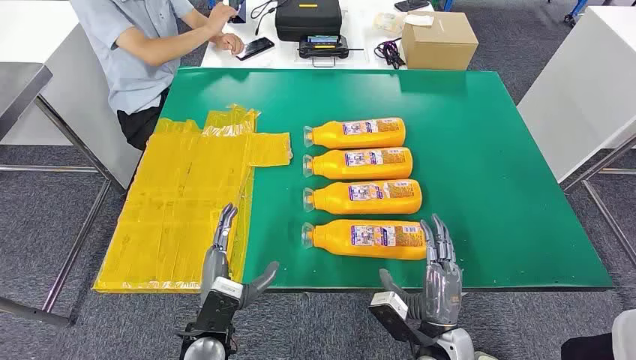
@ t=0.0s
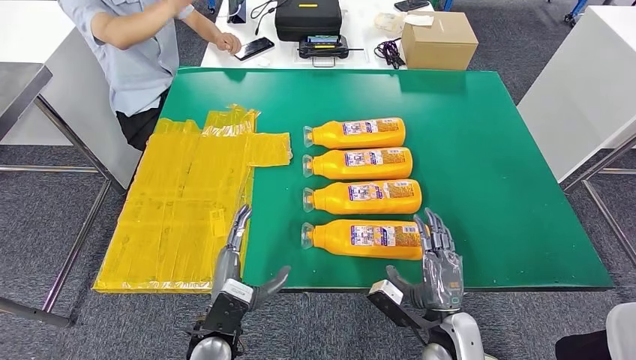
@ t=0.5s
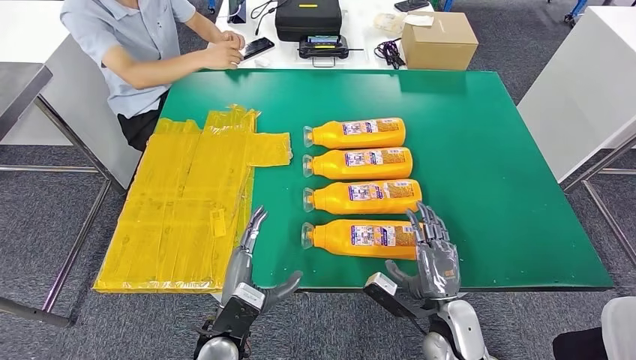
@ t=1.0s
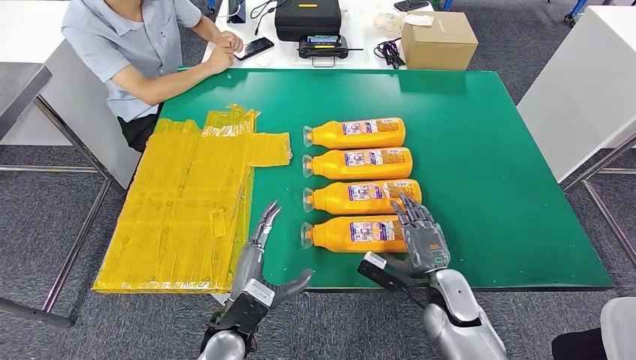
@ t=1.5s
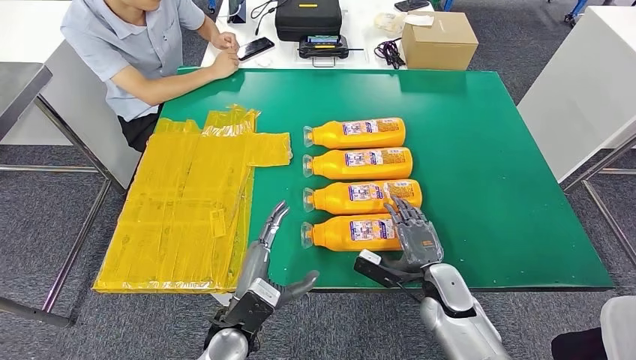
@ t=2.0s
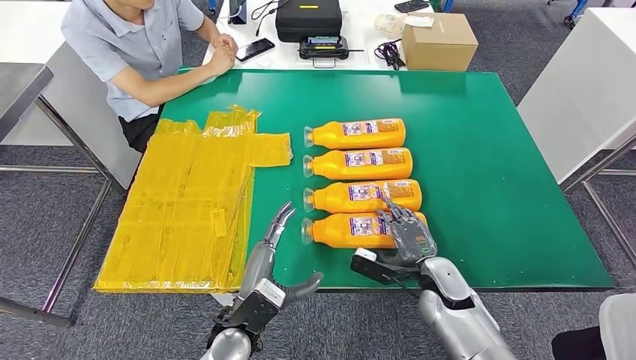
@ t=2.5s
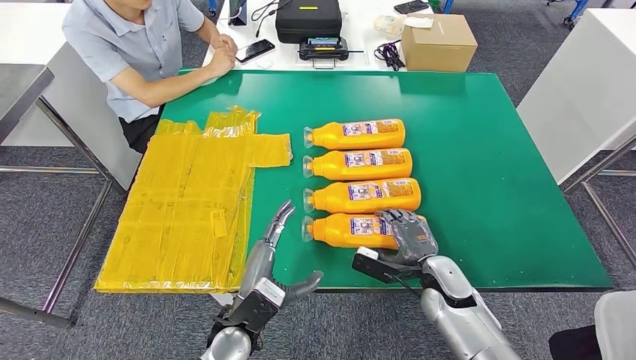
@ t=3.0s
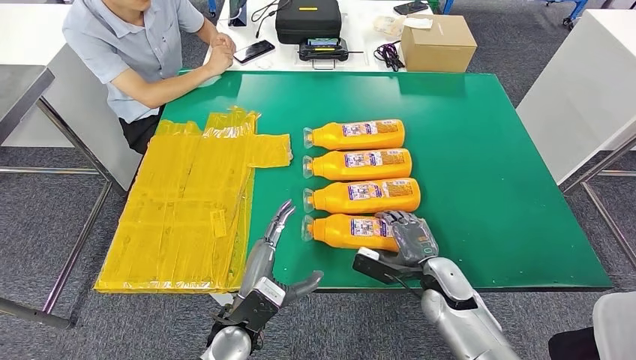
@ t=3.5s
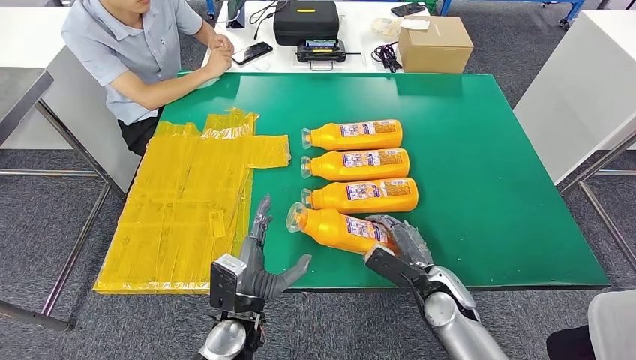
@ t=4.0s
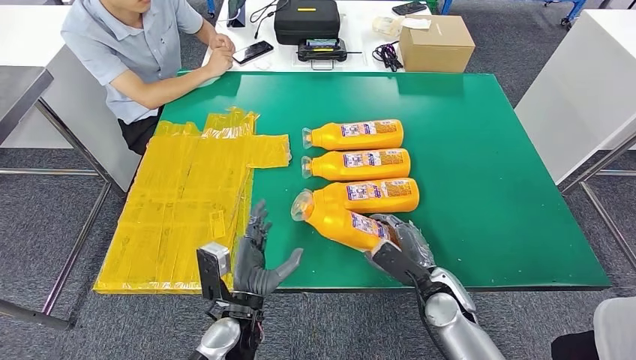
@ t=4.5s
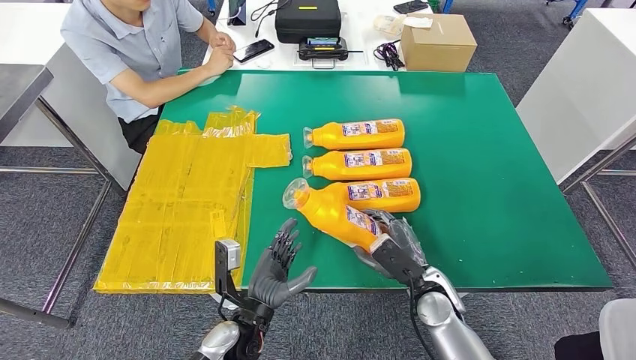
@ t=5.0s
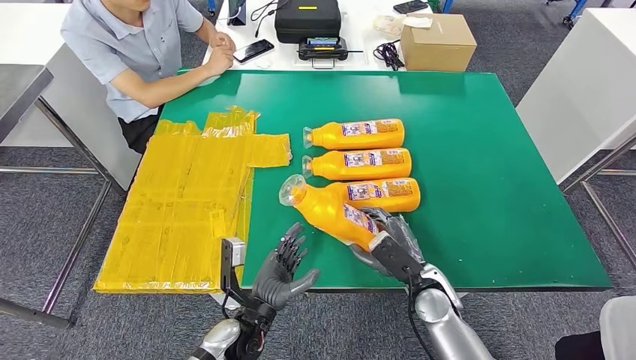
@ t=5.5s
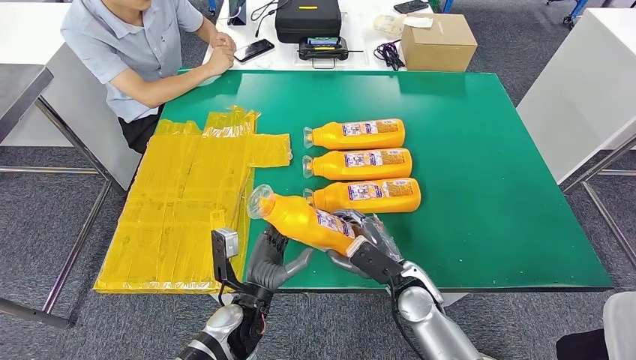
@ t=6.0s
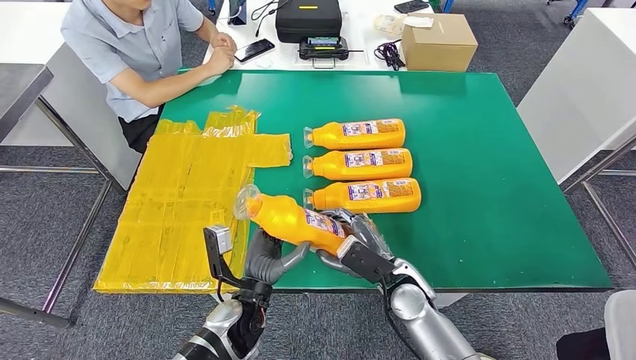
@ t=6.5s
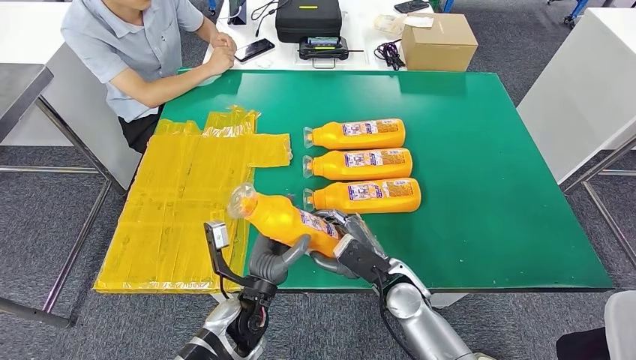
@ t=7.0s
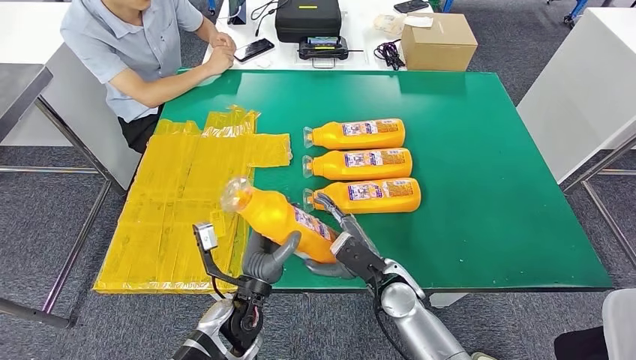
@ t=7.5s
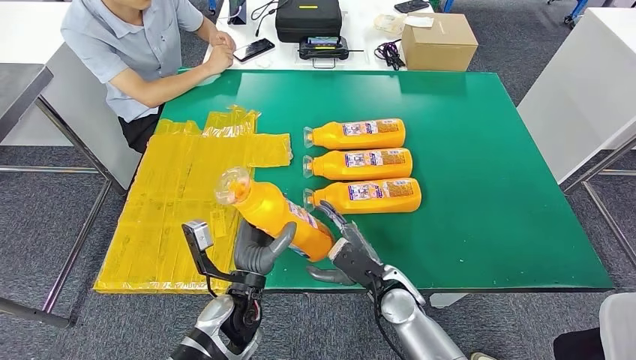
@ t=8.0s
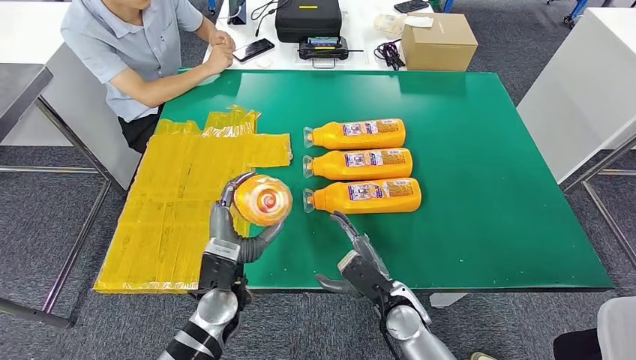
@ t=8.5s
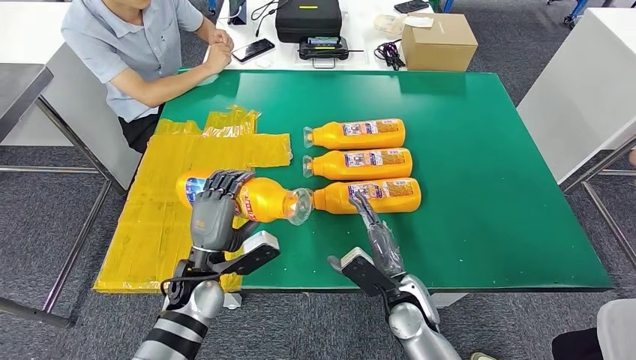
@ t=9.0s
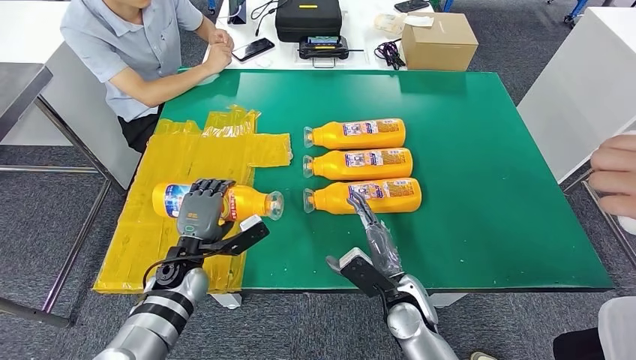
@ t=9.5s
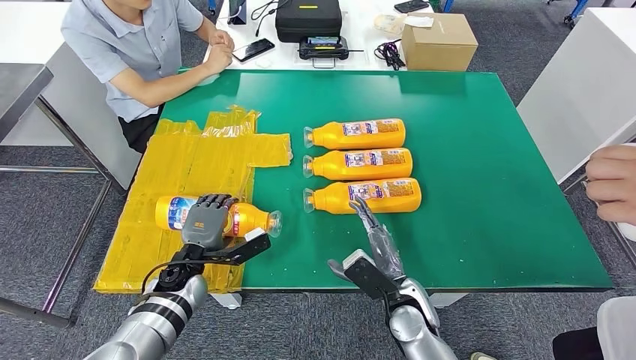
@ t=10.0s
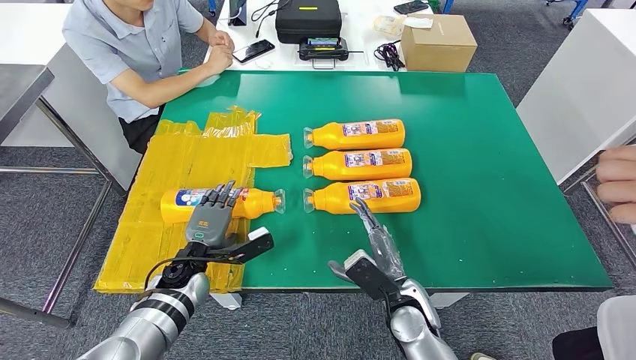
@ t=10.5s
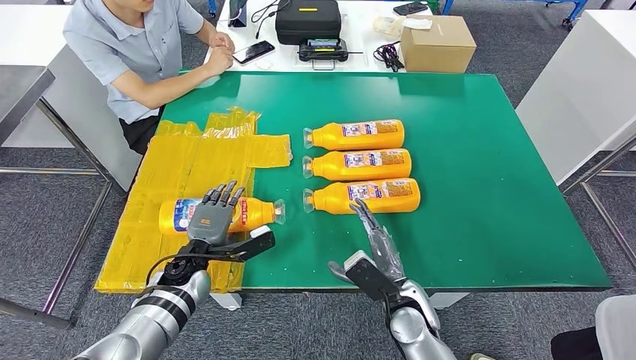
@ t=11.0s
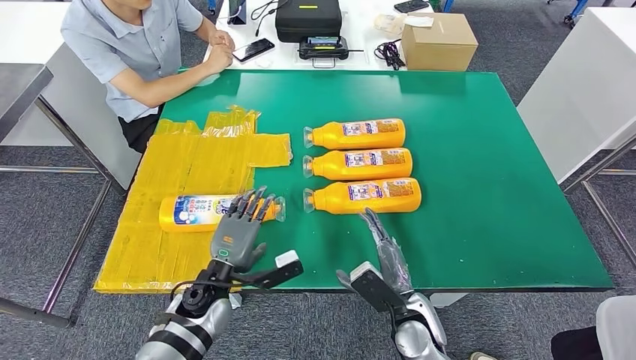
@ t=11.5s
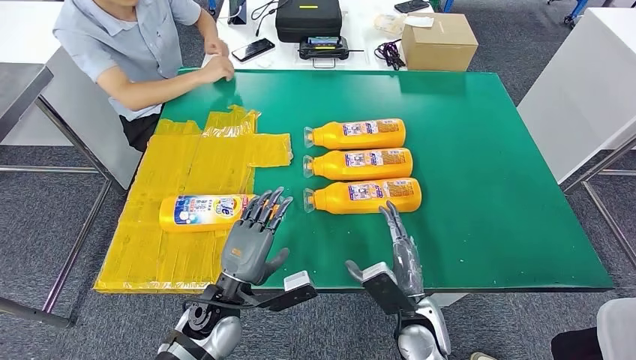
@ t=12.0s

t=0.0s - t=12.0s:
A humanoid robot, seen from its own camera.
Step, t=0.0s - t=6.0s: Take the fast-moving consumer goods bottle from the table.
t=4.0s - t=6.0s: The right hand shifts some 5 cm to the left.
t=8.0s - t=10.0s: The left hand moves to the left and forward, some 15 cm.
t=10.0s - t=12.0s: The left hand moves to the right and backward, some 10 cm.

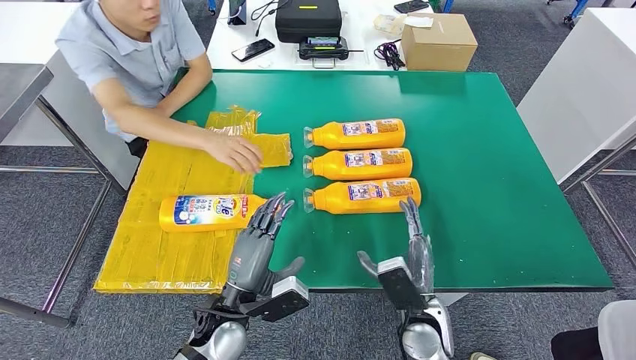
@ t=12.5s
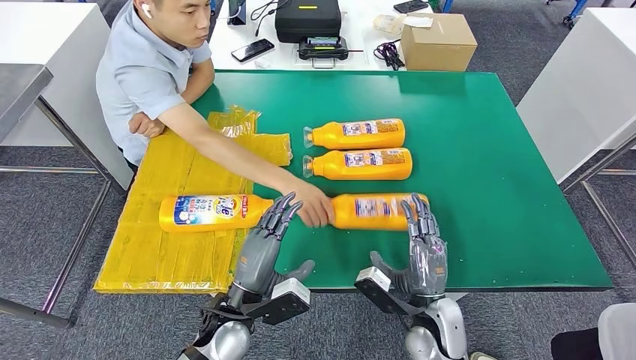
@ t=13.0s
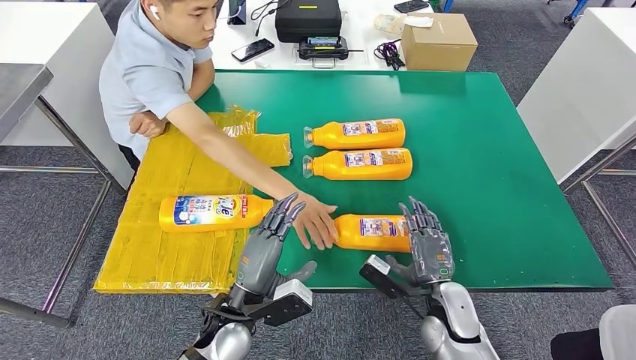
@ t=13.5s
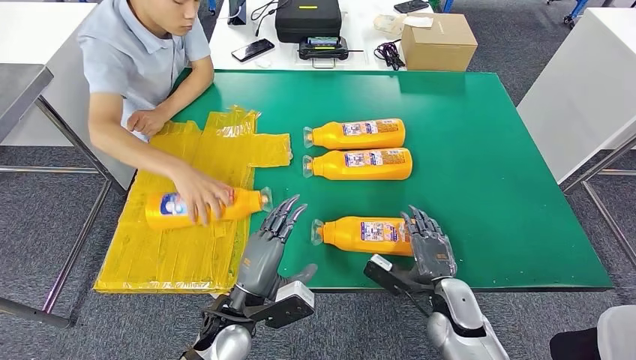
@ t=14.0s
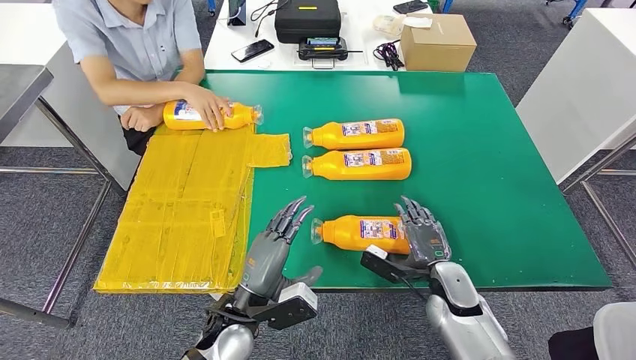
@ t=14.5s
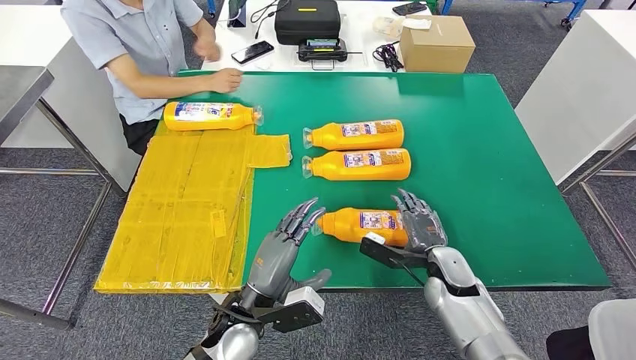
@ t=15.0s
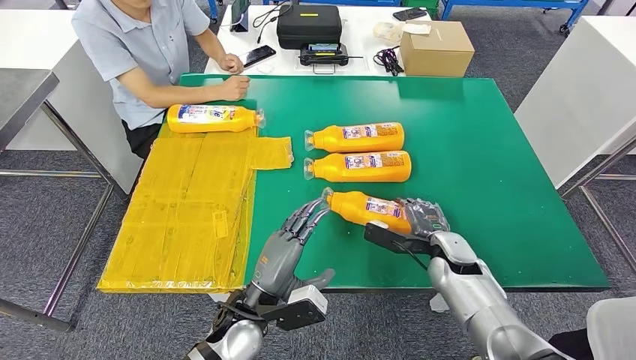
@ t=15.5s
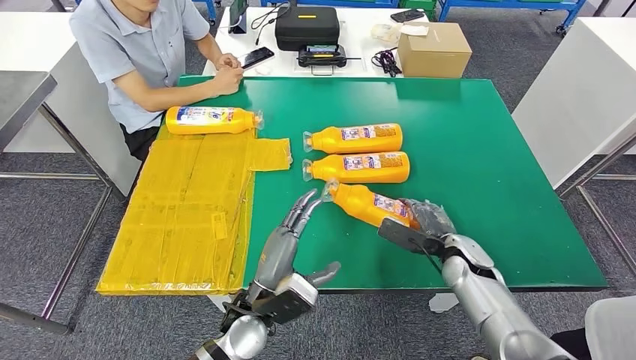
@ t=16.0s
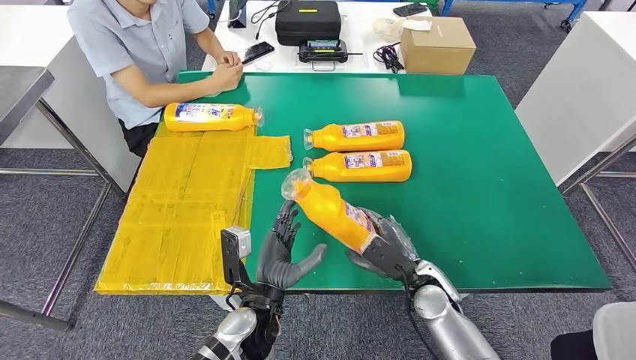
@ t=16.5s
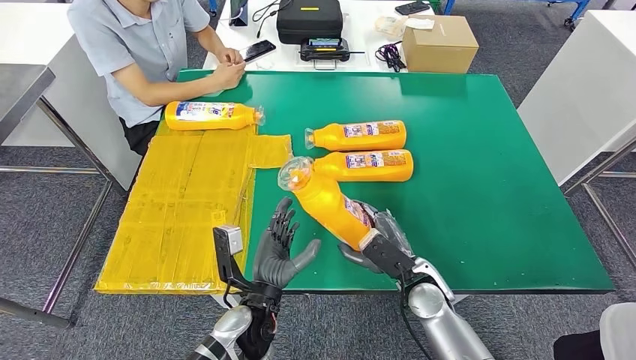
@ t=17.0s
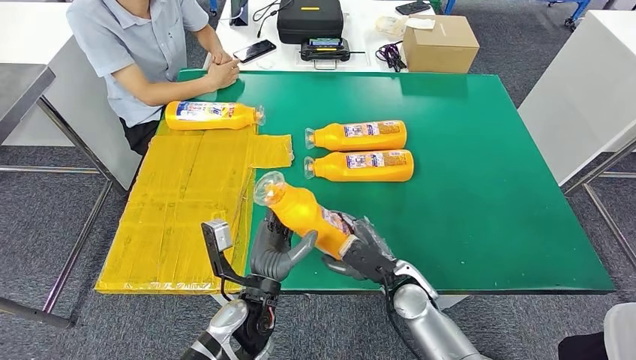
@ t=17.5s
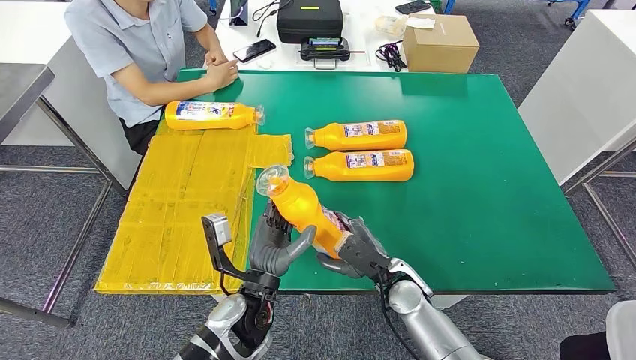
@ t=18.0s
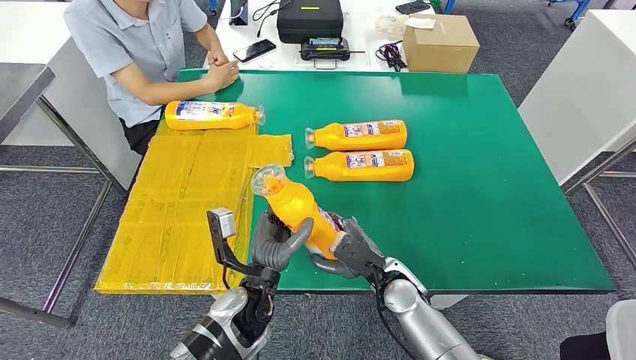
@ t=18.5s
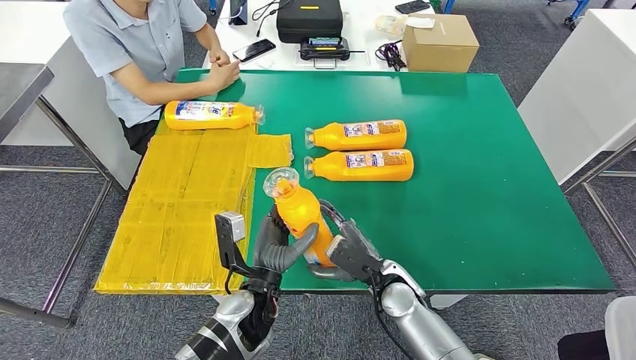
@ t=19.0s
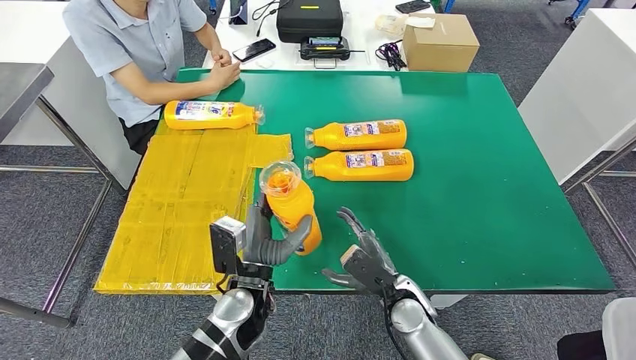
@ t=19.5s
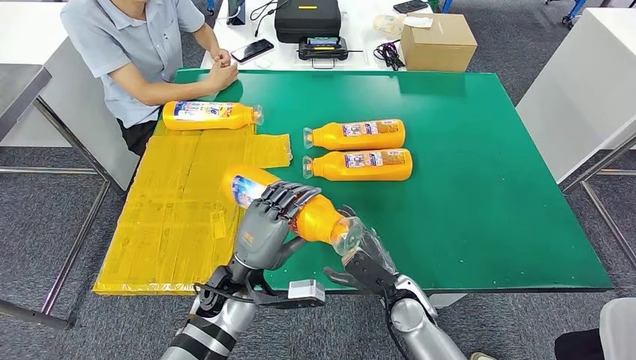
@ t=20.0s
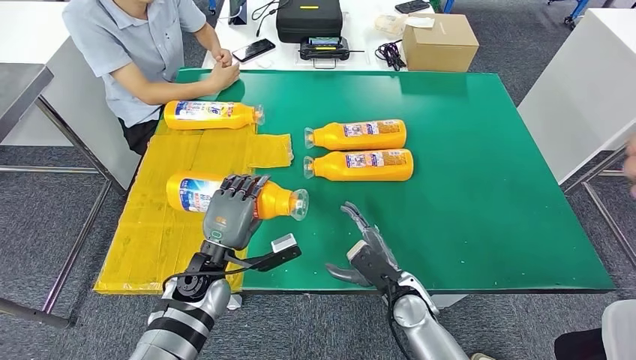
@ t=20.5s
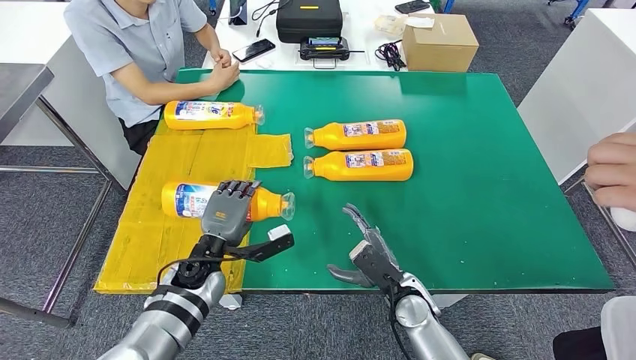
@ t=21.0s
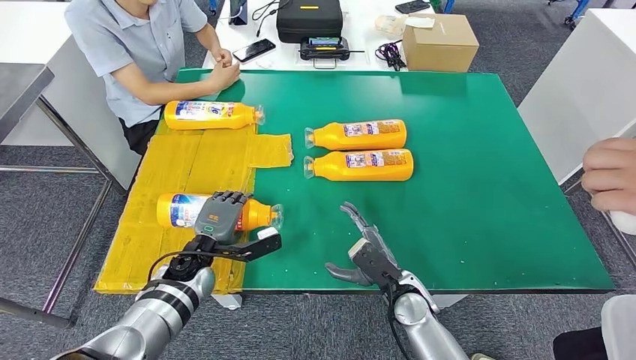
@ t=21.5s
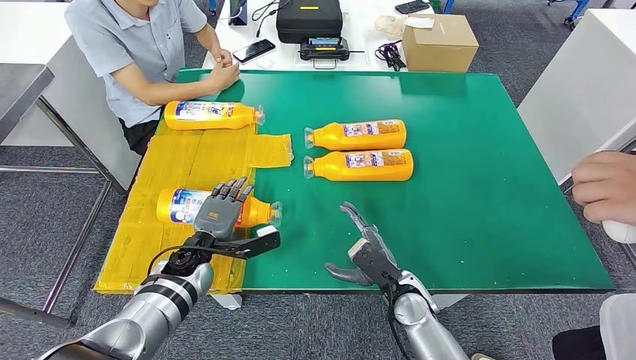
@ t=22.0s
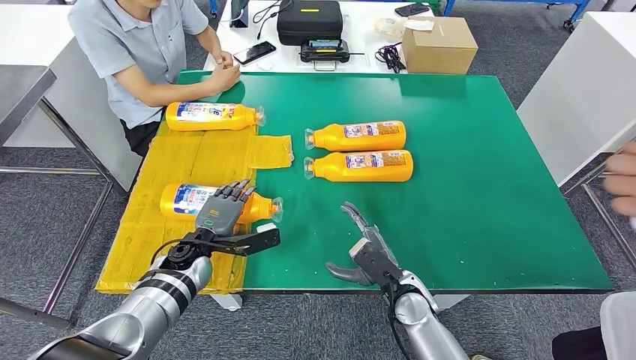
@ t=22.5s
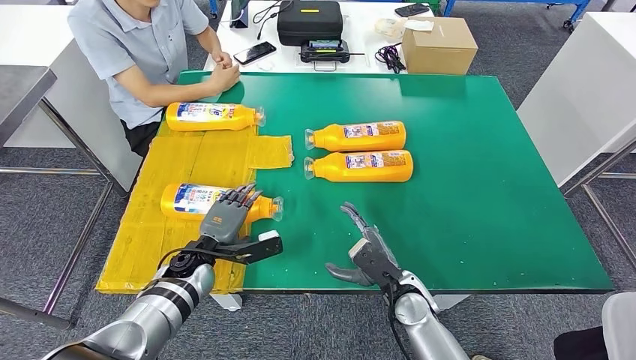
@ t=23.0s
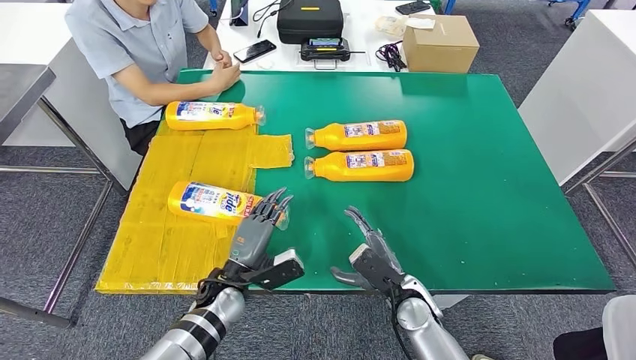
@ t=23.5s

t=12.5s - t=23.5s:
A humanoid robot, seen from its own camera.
Step, t=12.5s - t=17.0s: Pick up the fast-moving consumer goods bottle from the table.
Step, t=17.5s - t=21.0s: Flip the fast-moving consumer goods bottle to the front side.
t=12.5s - t=14.5s: The right hand travels to the right and forward by about 10 cm.
t=18.0s - t=20.0s: The left hand ends up some 5 cm from where it was.
t=20.0s - t=21.5s: The left hand is displaced to the left, forward and downward by about 10 cm.
t=21.5s - t=23.5s: The left hand travels to the right by roughly 5 cm.
